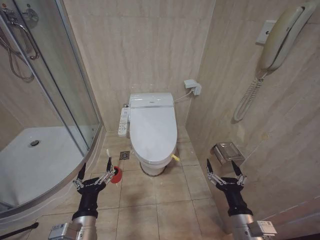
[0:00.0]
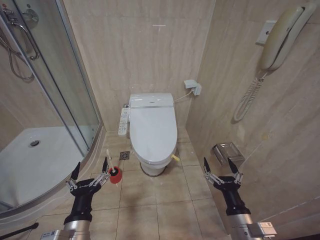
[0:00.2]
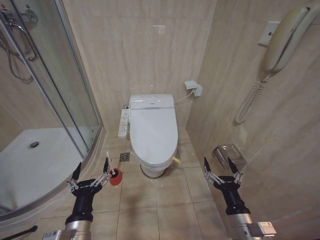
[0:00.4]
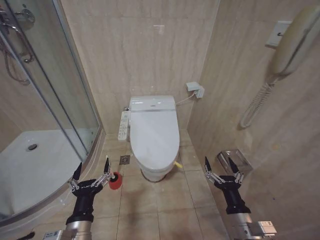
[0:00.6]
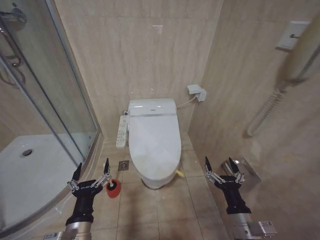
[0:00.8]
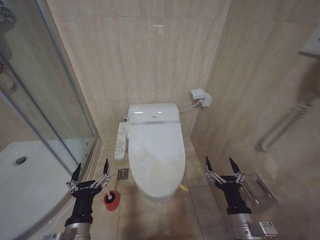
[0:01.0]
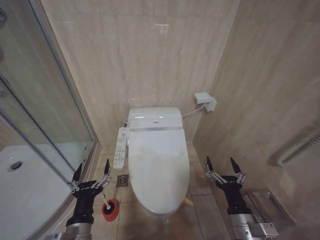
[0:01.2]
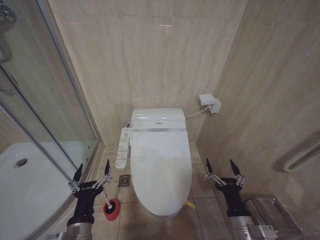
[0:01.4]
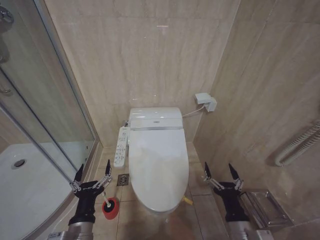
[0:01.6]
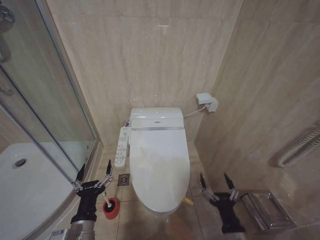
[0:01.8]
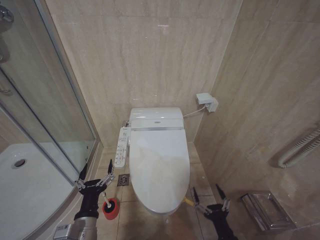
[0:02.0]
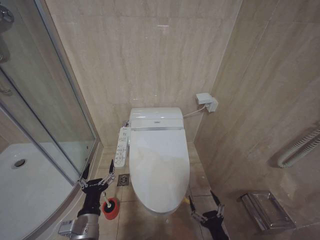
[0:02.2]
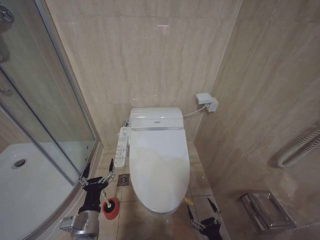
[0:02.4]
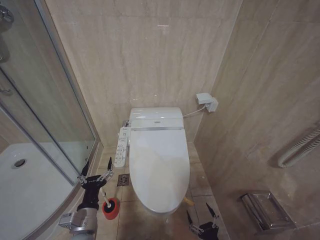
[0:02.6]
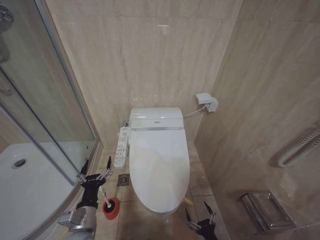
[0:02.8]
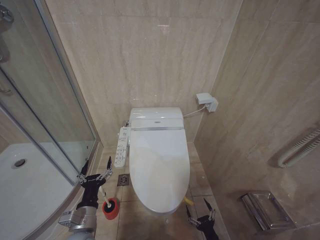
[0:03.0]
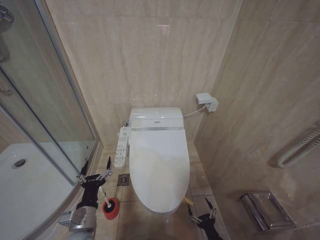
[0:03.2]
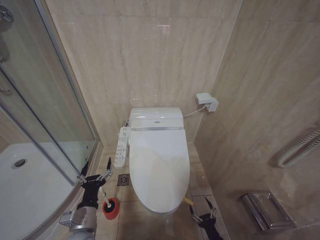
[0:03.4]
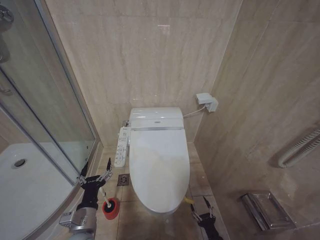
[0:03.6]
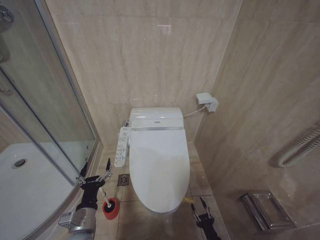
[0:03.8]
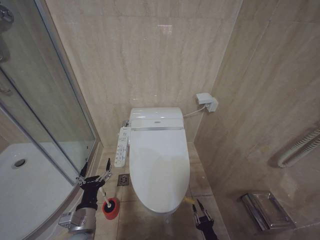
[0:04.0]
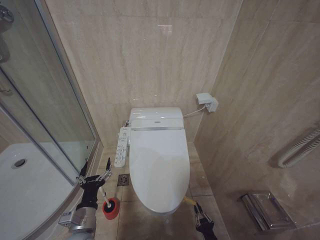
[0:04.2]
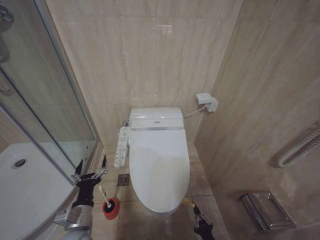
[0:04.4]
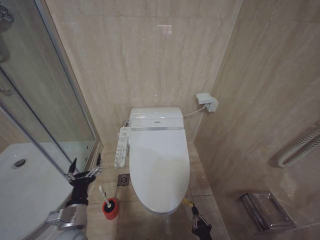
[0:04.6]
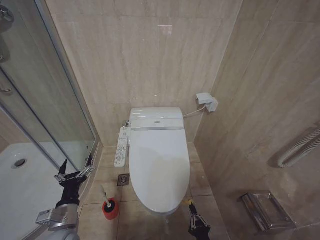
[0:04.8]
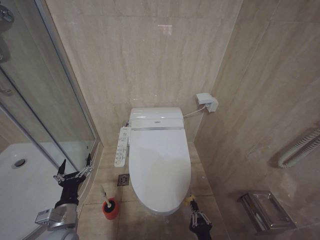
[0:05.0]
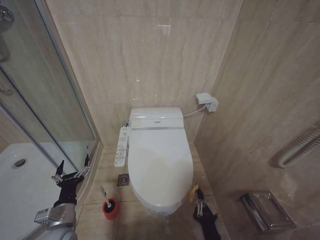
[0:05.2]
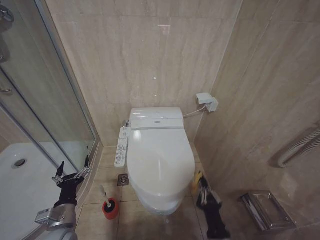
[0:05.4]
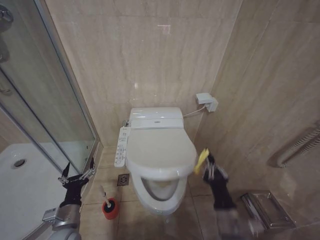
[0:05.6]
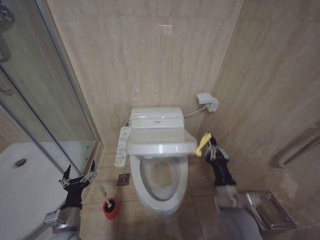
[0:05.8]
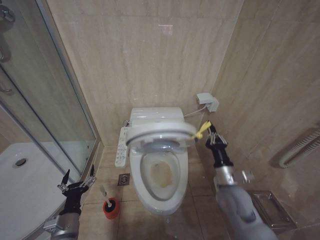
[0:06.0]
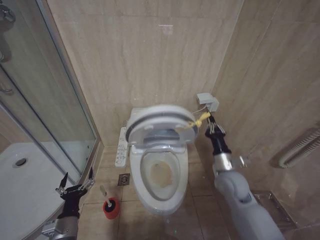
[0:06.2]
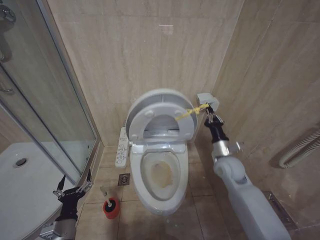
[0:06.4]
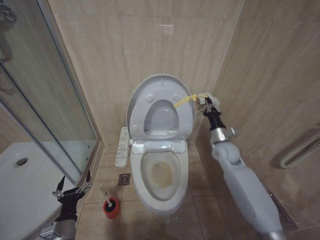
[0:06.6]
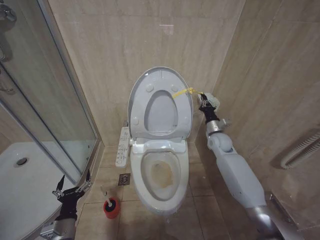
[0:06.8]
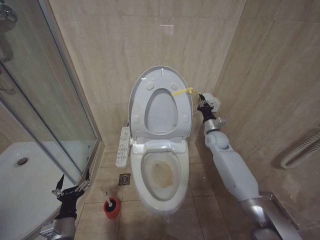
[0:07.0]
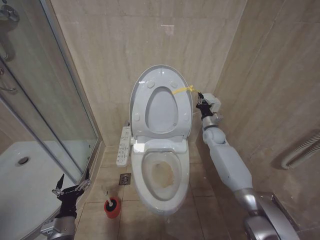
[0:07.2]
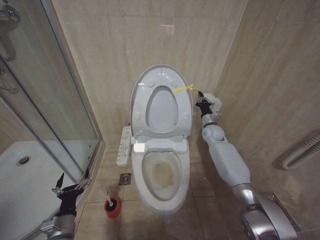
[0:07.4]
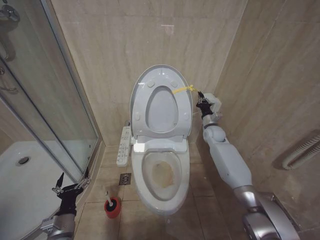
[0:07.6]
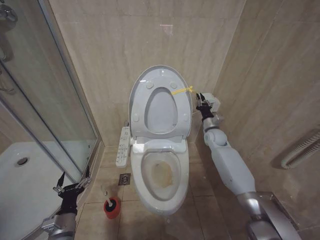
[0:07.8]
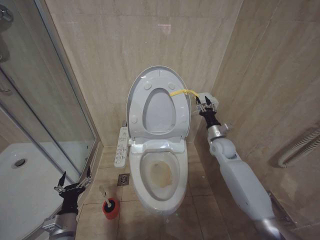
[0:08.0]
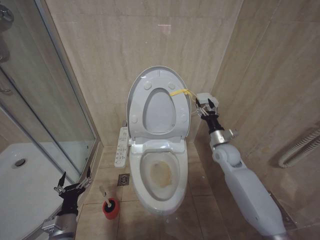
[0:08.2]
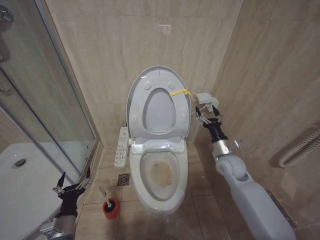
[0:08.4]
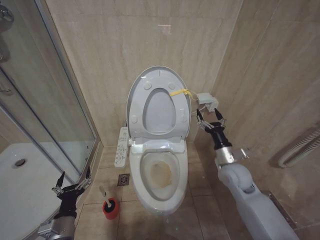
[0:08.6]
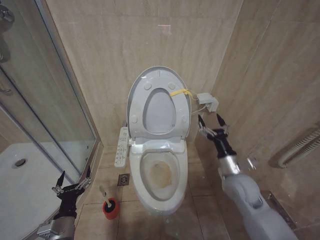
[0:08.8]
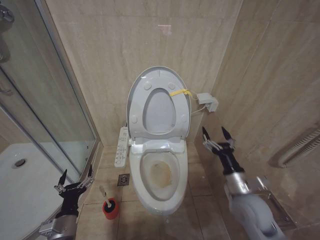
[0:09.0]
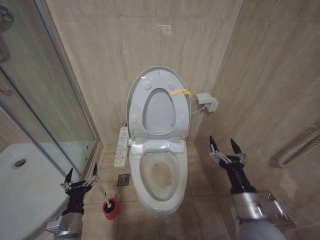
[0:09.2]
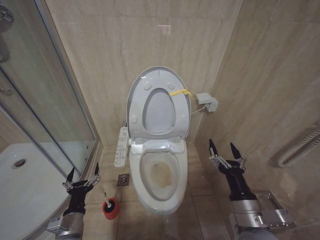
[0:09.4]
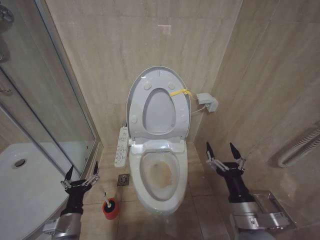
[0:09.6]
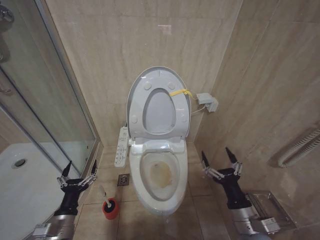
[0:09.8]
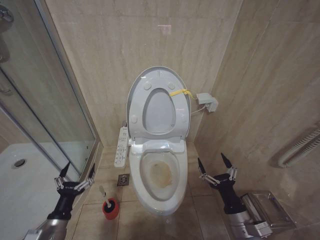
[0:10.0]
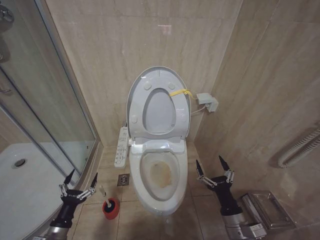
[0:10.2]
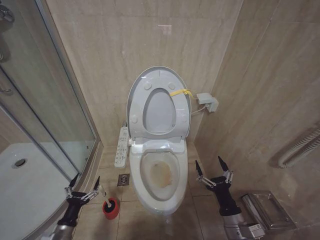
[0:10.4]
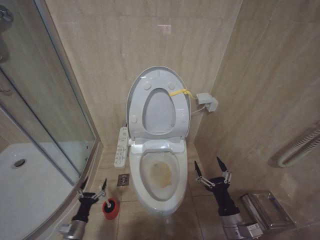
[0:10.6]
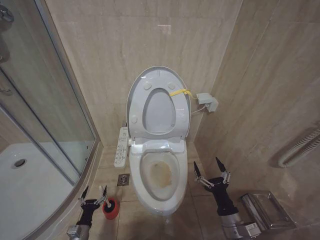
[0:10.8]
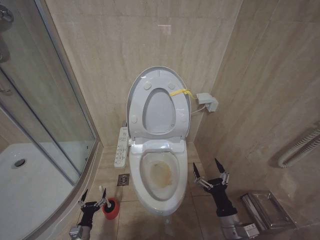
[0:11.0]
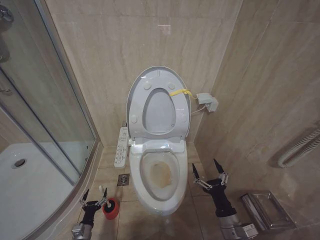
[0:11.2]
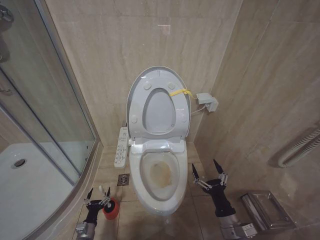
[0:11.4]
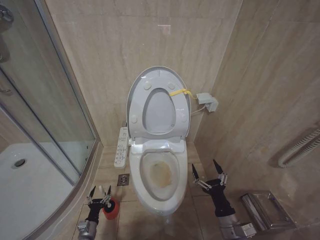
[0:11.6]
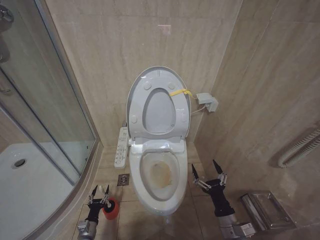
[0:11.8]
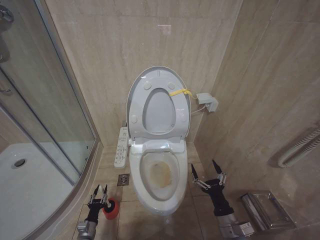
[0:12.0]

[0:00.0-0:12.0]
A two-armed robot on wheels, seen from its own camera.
Task of the whole recording: Open the toilet lid, clean the toilet bowl with a toilet brush, close the toilet lid, and flush.
0:01.6 to 0:03.0: The right gripper travels downward by roughly 20 cm, while the left gripper goes approximately 5 cm forward.
0:04.4 to 0:06.0: The left gripper ends up approximately 5 cm from where it was, while the right gripper shifts some 30 cm upward and forward.
0:06.0 to 0:07.6: The right gripper travels forward by approximately 30 cm.
0:07.6 to 0:09.0: The right gripper moves backward, roughly 30 cm, and opens up.
0:09.0 to 0:10.4: The left gripper is displaced downward and to the left by roughly 10 cm. Meanwhile the right gripper goes some 15 cm backward and downward.
0:10.4 to 0:12.0: The left gripper heads downward, covering roughly 15 cm.

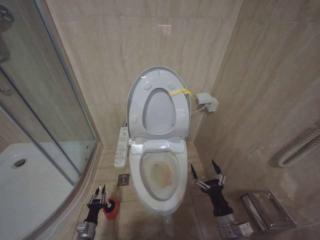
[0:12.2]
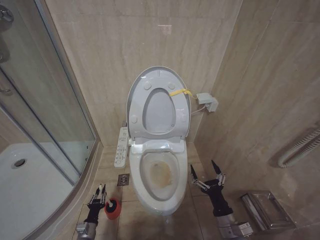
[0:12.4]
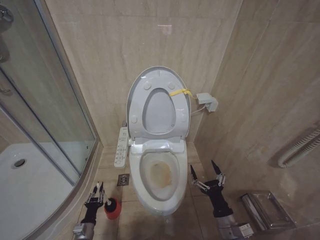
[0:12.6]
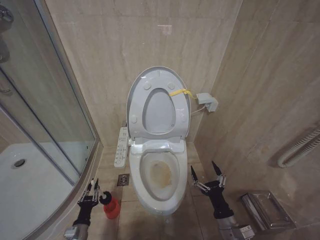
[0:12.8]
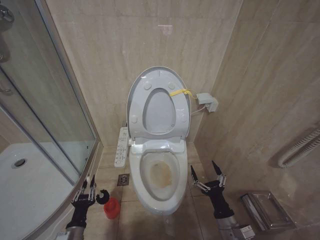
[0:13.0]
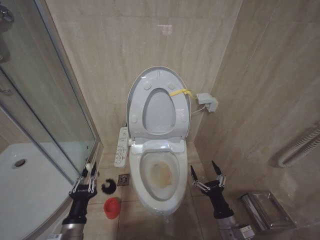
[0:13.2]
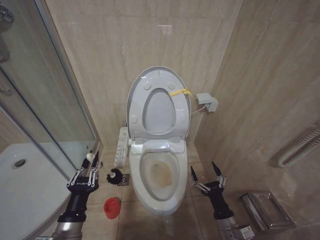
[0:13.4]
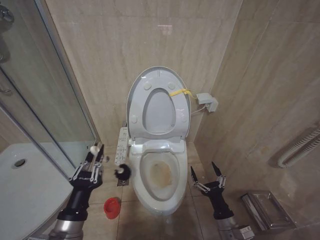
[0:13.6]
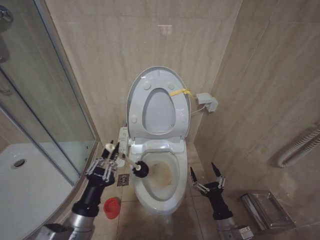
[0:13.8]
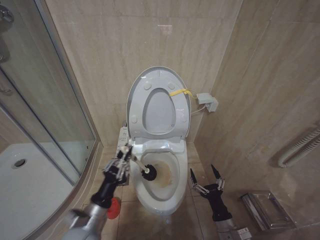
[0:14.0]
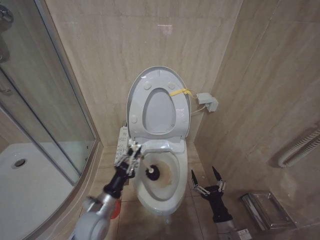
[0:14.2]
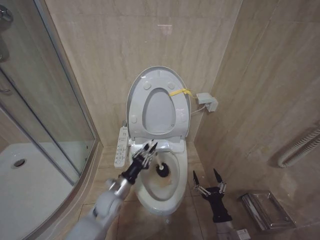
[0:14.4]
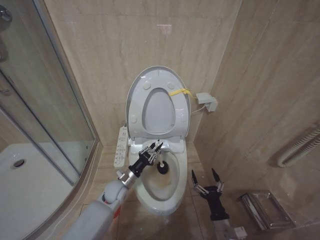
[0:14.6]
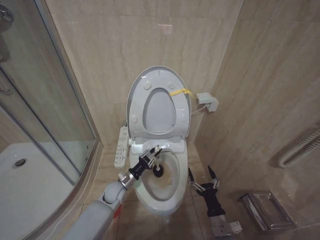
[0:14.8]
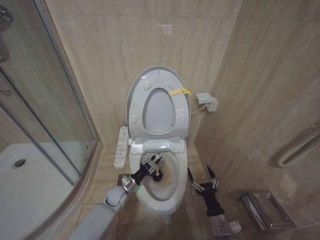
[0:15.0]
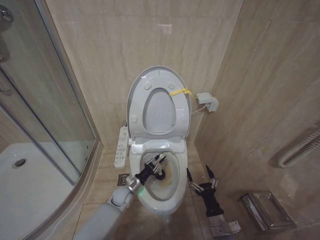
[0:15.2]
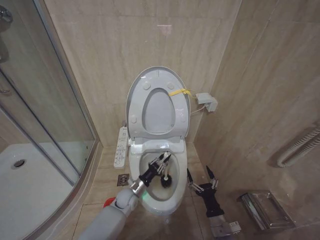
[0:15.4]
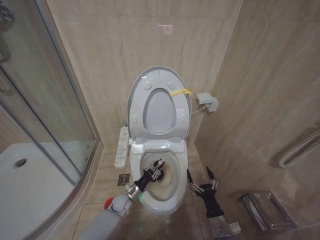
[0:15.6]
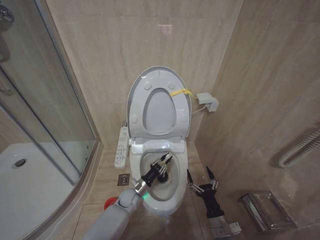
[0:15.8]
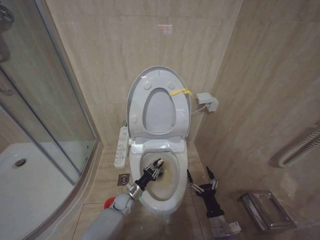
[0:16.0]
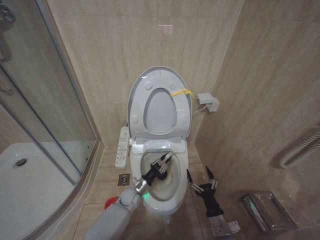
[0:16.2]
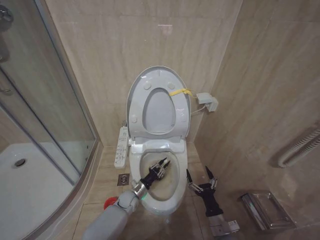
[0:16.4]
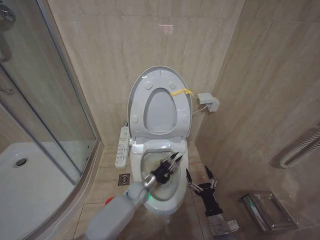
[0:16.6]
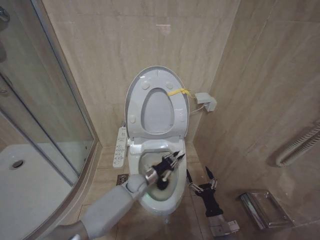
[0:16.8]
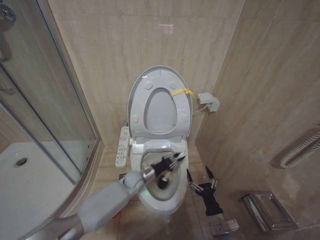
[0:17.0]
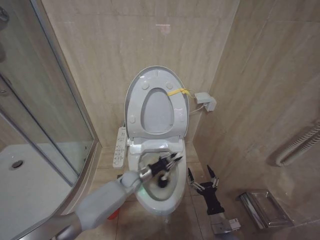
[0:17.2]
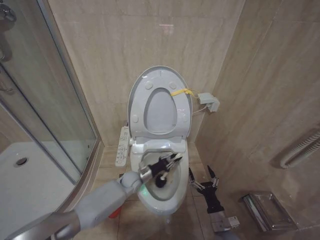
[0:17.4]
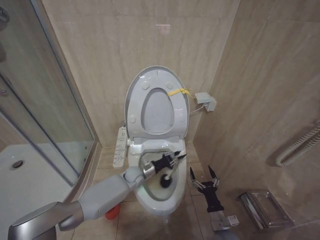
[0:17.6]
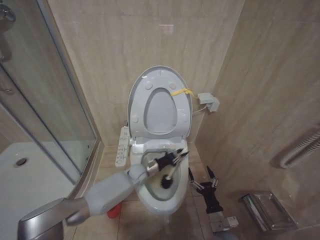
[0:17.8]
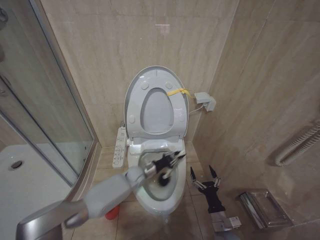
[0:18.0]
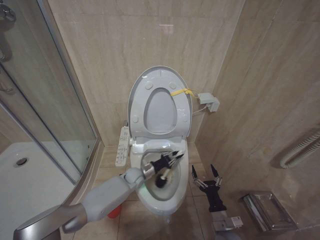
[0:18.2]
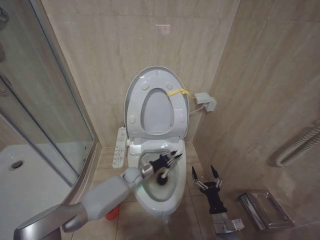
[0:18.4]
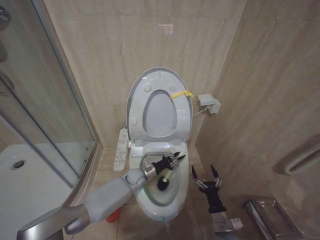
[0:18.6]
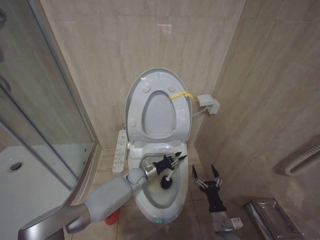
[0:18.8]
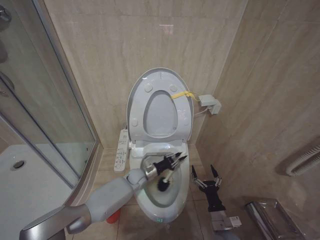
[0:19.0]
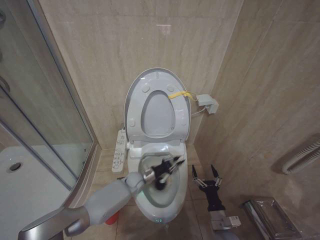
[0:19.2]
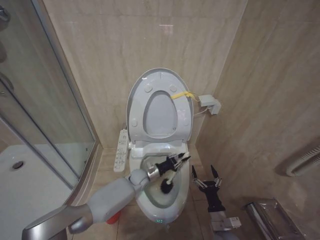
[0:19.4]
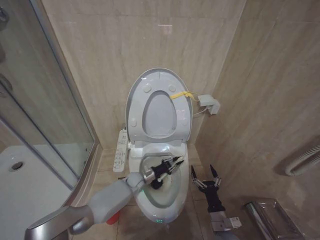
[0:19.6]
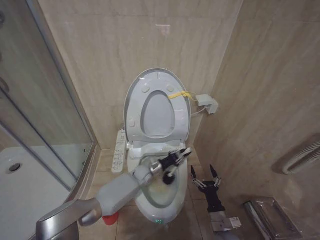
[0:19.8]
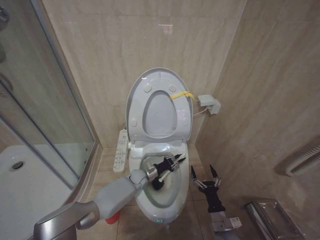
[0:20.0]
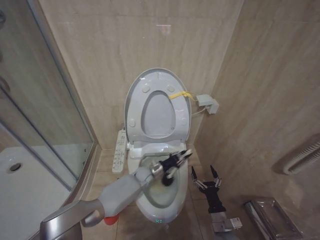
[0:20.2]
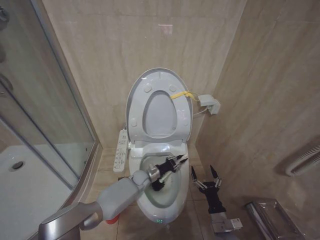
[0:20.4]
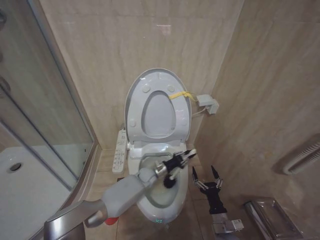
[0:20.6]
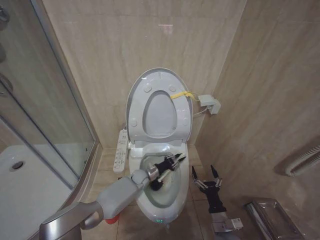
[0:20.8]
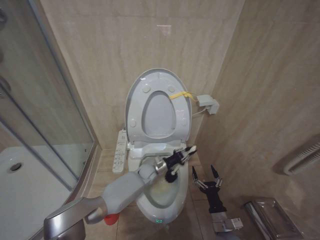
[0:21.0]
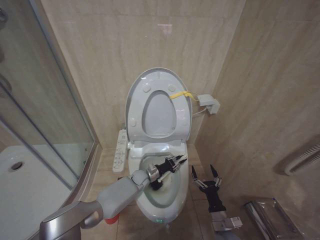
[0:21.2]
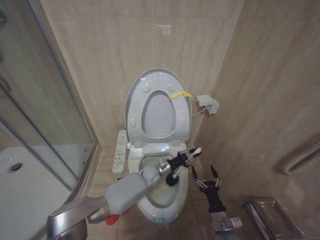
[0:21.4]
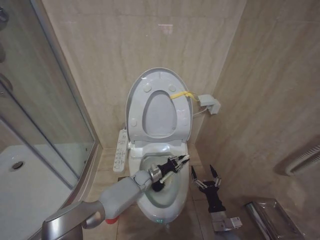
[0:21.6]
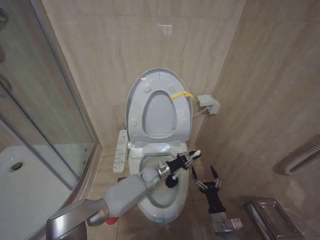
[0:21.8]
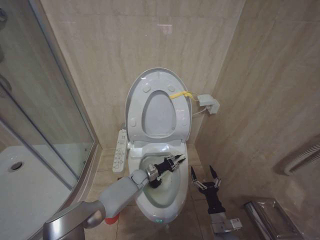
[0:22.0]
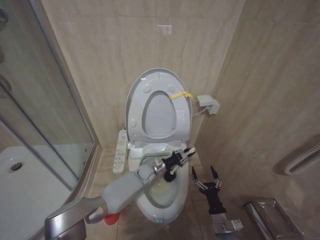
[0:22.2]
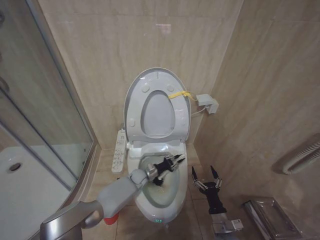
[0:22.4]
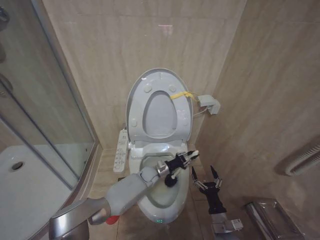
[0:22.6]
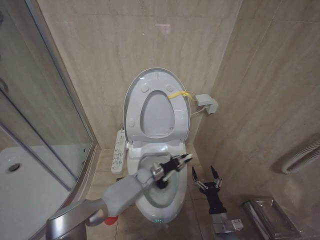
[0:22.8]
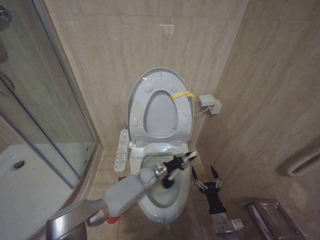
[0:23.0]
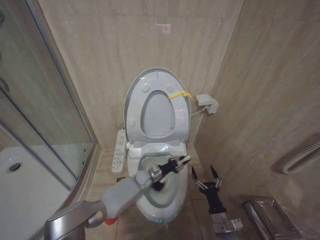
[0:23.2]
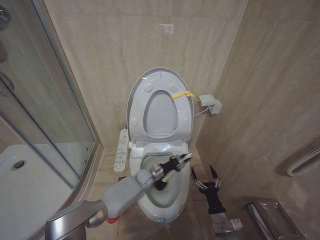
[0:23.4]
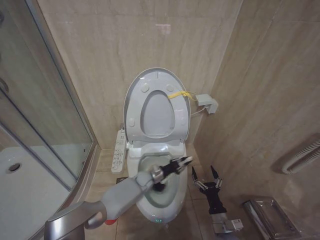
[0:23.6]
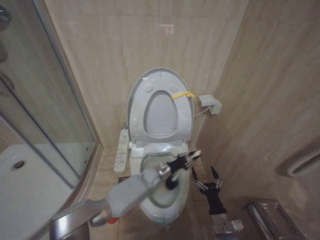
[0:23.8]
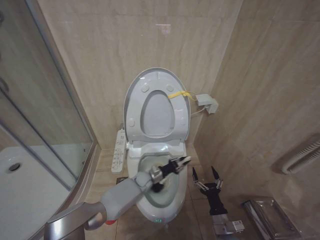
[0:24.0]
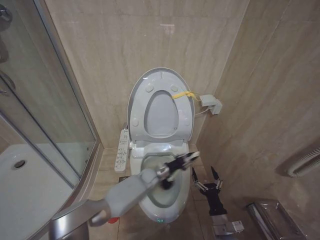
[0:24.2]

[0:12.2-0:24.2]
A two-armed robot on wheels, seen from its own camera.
Task of the whole recording: Open the toilet lid, clean the toilet bowl with a toilet brush, close the toilet lid, and flush.
0:12.2 to 0:13.8: The left gripper heads upward, covering some 35 cm.
0:13.8 to 0:15.2: The left gripper goes about 35 cm forward and downward.
0:15.2 to 0:16.6: The left gripper shifts approximately 5 cm to the right.
0:16.6 to 0:18.2: The left gripper heads upward and forward, covering approximately 10 cm.
0:18.2 to 0:19.8: There are only small adjustments of the grippers.
0:19.8 to 0:21.2: The grippers make only small movements.
0:22.6 to 0:24.2: There are only small adjustments of the grippers.
